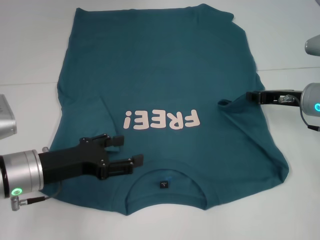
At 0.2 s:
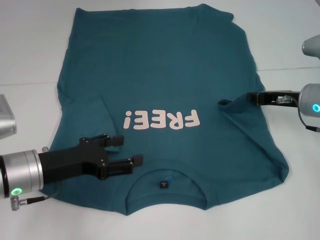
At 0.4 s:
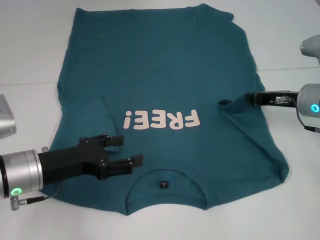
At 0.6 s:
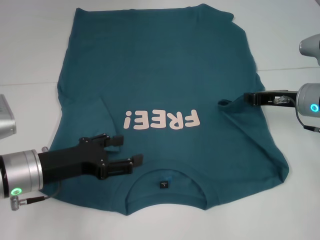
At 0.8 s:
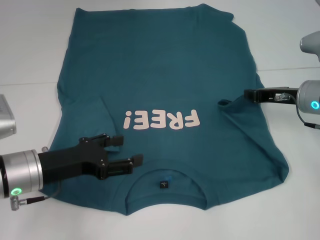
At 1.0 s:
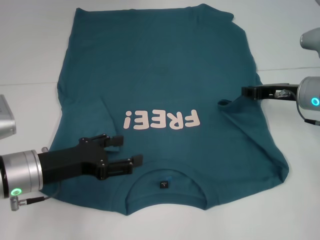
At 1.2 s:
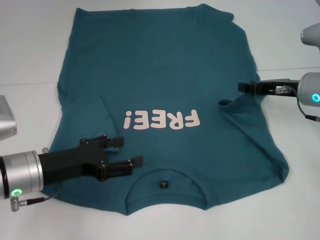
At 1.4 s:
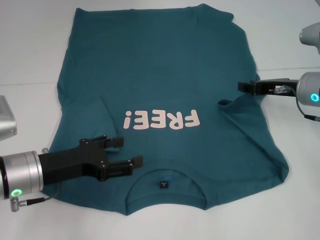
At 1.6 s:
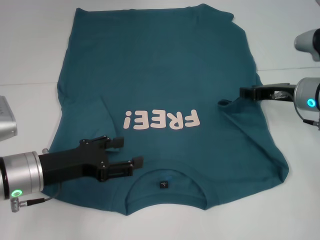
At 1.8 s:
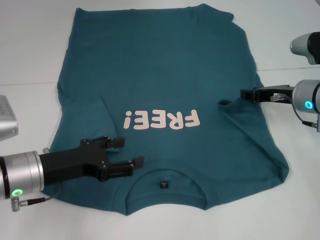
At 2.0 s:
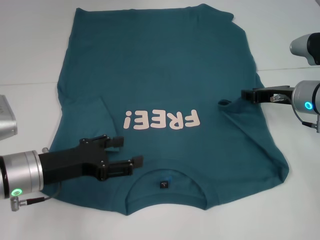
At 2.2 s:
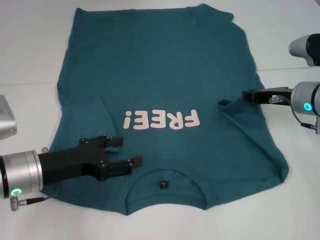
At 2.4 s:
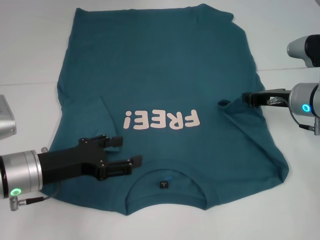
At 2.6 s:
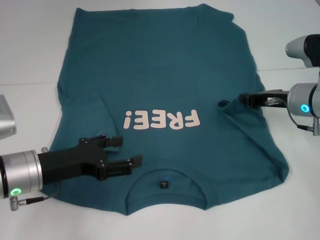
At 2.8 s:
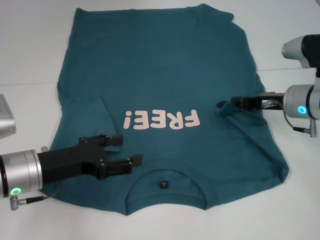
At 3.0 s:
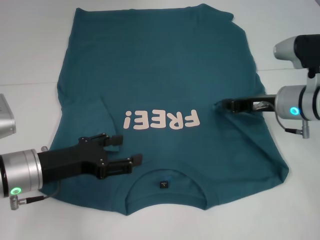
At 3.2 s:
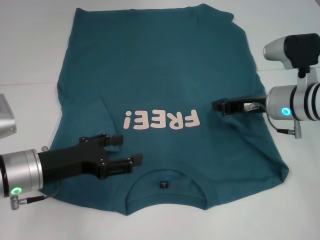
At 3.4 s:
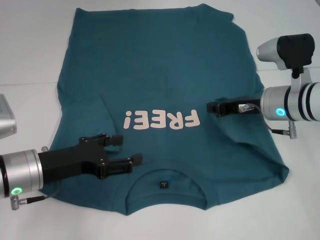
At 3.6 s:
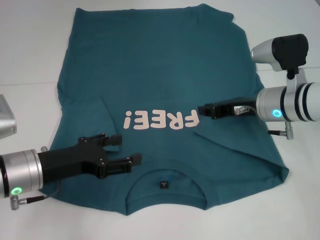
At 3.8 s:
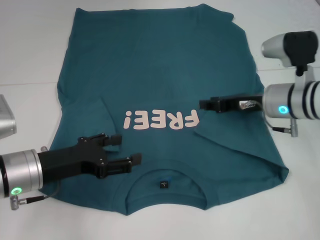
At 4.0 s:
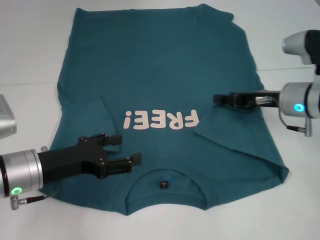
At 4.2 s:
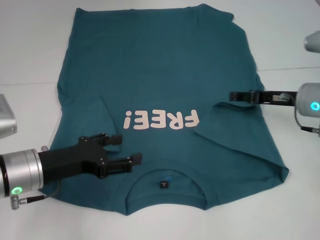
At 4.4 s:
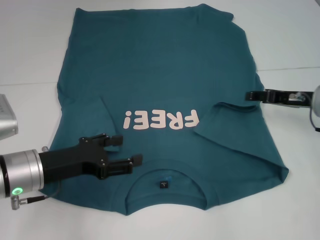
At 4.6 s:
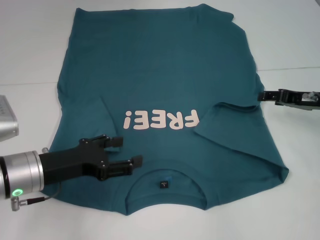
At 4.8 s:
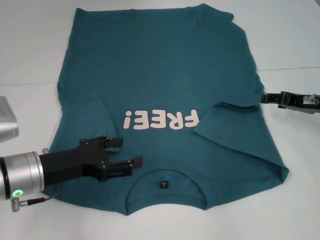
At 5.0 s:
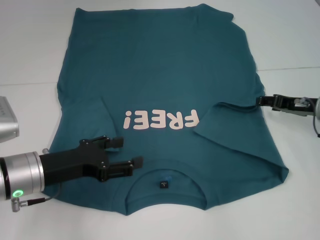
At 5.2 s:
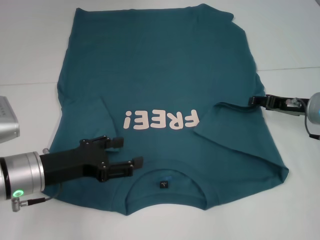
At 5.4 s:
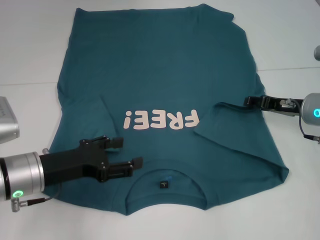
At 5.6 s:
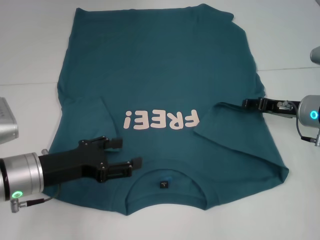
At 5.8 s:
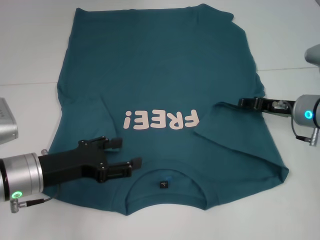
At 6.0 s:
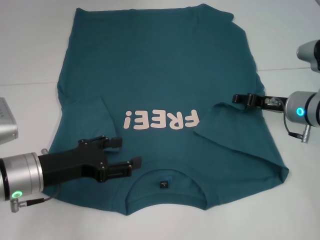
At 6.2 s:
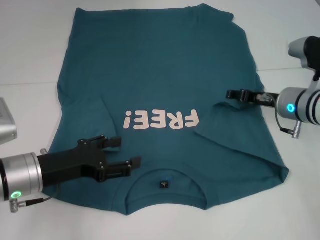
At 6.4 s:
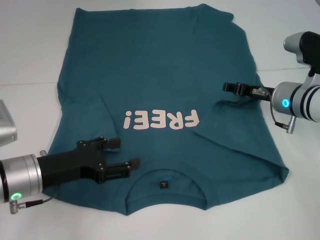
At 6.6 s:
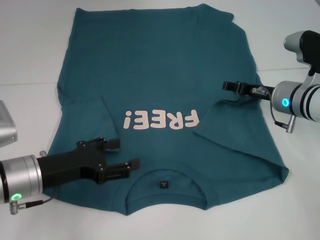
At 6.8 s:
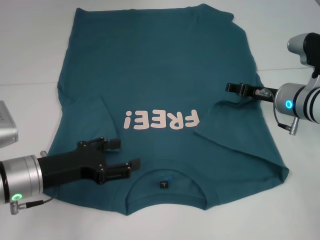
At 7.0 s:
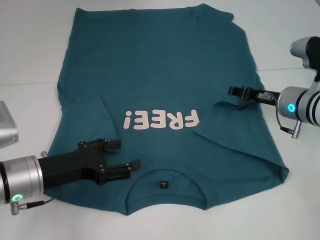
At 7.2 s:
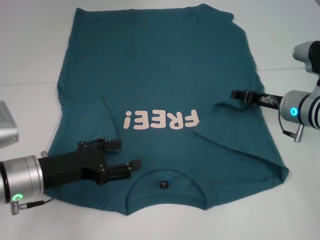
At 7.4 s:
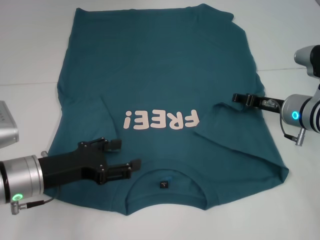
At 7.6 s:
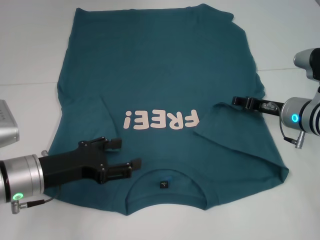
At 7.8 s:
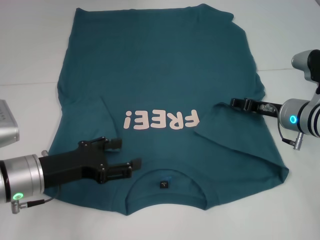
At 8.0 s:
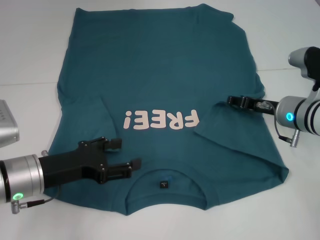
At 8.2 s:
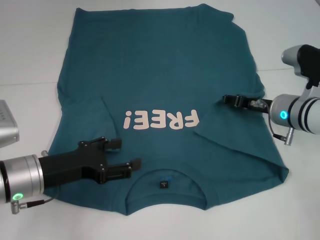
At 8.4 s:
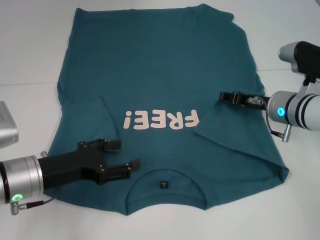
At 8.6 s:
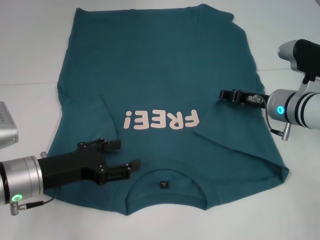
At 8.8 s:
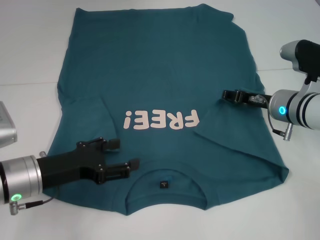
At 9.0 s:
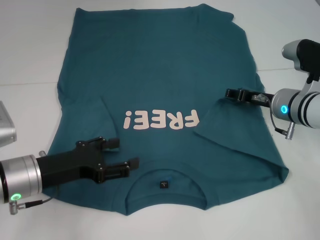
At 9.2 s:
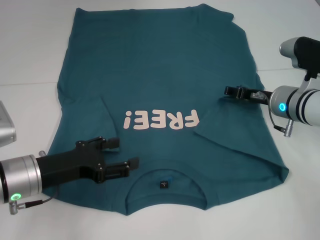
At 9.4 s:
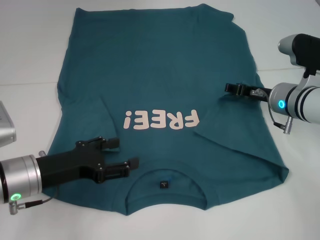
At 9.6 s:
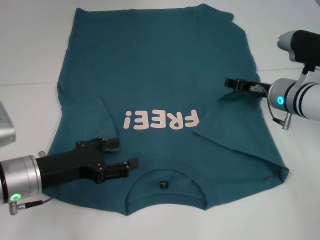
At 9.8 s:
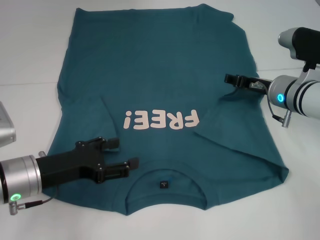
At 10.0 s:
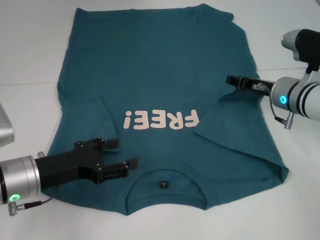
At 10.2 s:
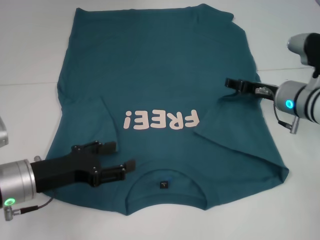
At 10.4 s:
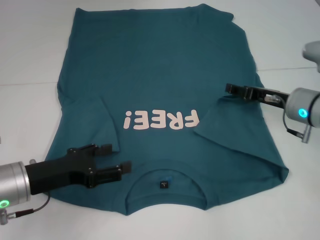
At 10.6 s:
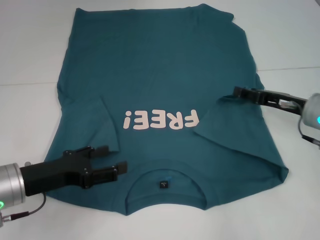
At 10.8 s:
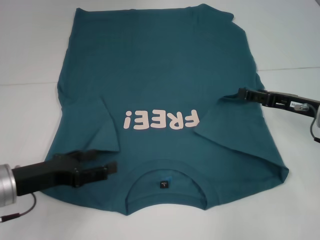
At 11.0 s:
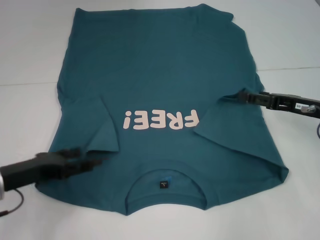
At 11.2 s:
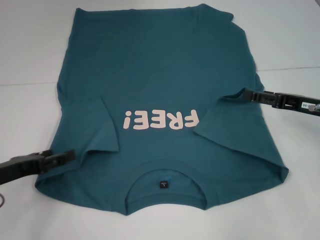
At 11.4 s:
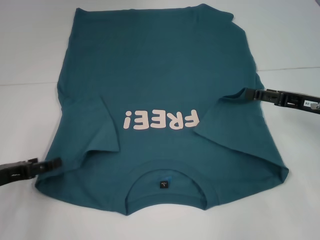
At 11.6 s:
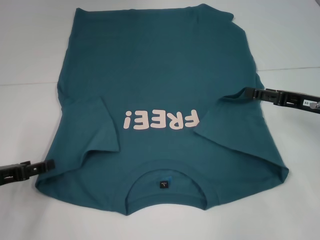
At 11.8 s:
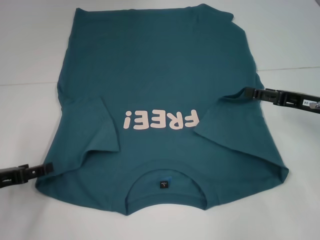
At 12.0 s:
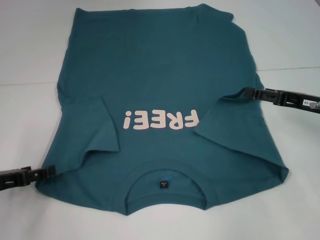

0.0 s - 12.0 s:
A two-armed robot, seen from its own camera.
Step, 0.0 s - 10.6 s: Fold the bottom right sleeve to the right.
0.0 s - 1.6 s: The right gripper closes and opens again.
1.6 s - 3.0 s: The right gripper closes.
3.0 s - 4.4 s: The right gripper moves to the right, roughly 5 cm, and opens up.
4.4 s - 6.0 s: The grippers make only small movements.
6.0 s - 10.4 s: The grippers make only small movements.
10.4 s - 12.0 s: The left gripper goes approximately 10 cm to the left. The right gripper is displaced to the right by approximately 5 cm.

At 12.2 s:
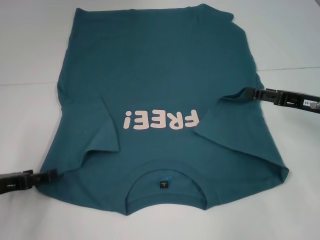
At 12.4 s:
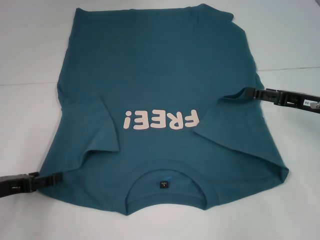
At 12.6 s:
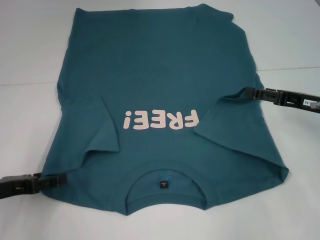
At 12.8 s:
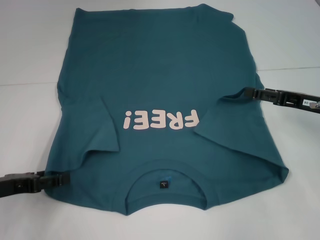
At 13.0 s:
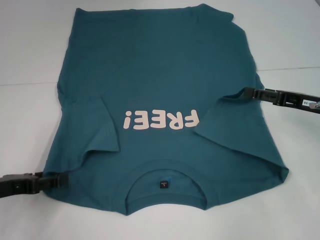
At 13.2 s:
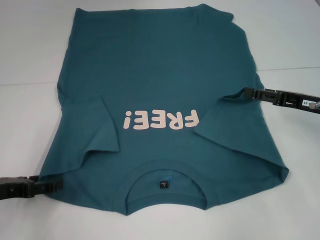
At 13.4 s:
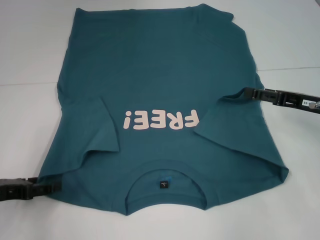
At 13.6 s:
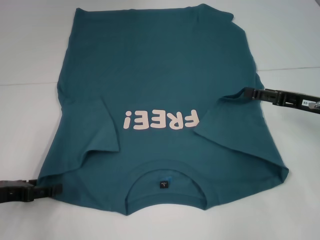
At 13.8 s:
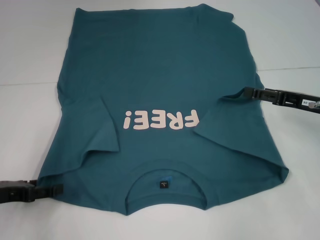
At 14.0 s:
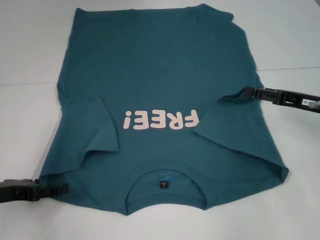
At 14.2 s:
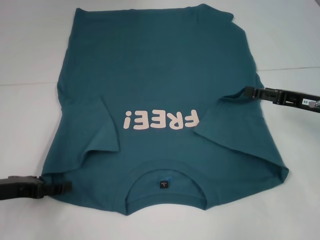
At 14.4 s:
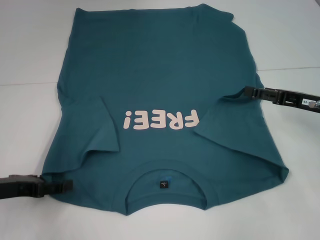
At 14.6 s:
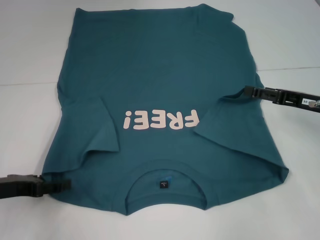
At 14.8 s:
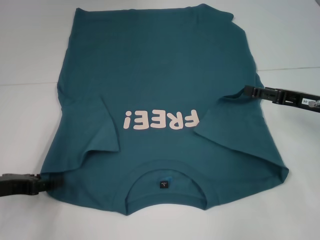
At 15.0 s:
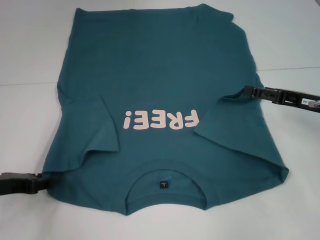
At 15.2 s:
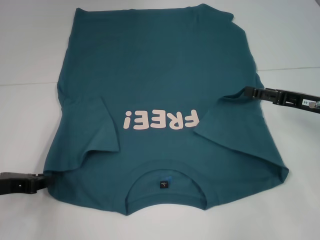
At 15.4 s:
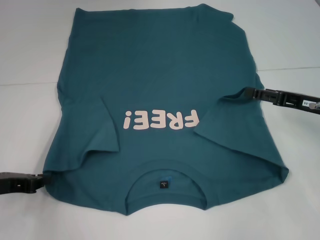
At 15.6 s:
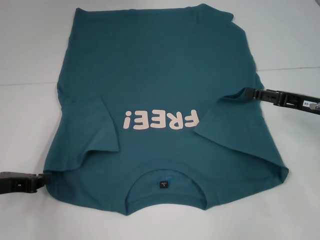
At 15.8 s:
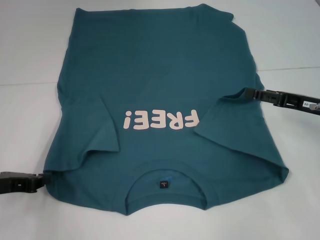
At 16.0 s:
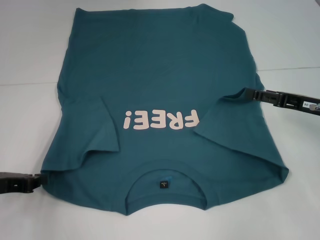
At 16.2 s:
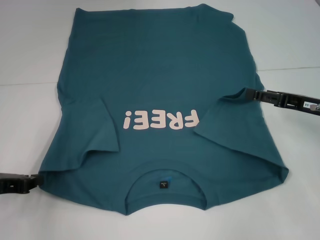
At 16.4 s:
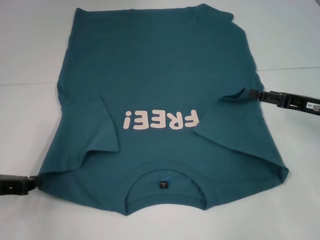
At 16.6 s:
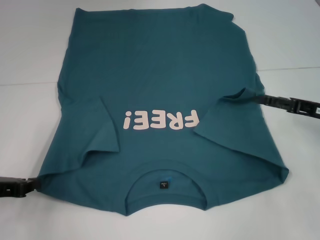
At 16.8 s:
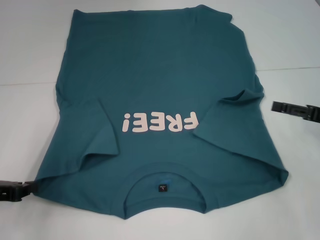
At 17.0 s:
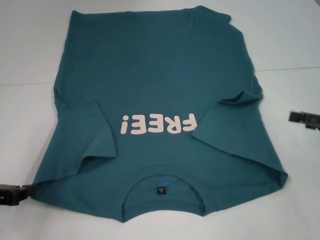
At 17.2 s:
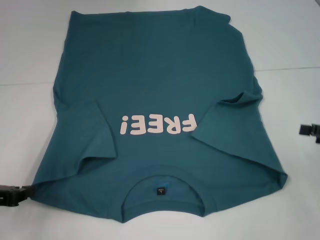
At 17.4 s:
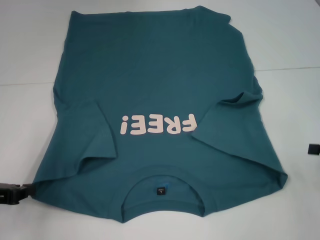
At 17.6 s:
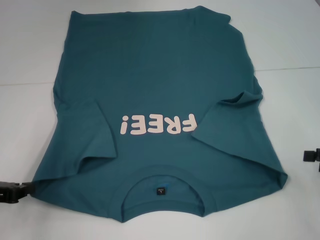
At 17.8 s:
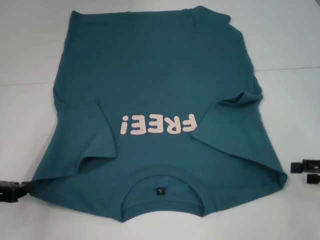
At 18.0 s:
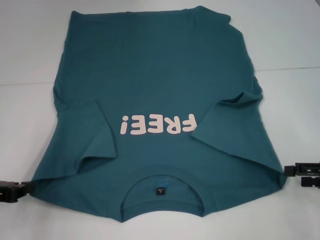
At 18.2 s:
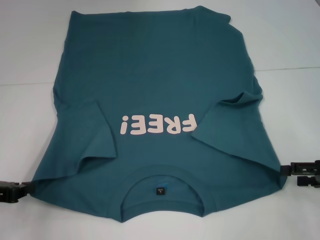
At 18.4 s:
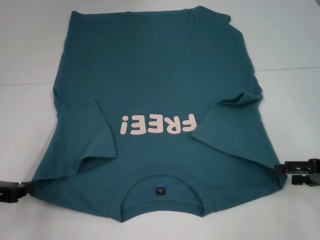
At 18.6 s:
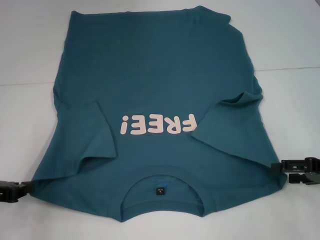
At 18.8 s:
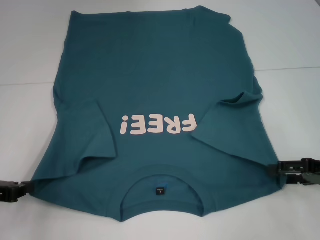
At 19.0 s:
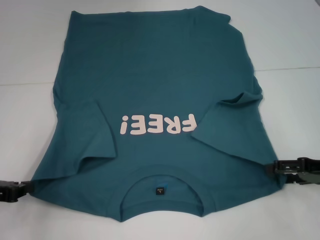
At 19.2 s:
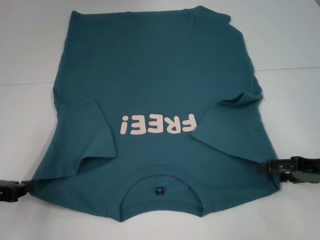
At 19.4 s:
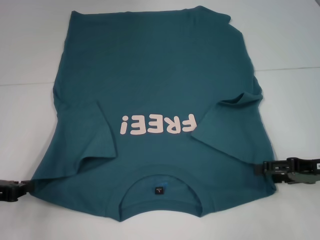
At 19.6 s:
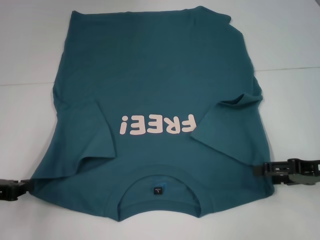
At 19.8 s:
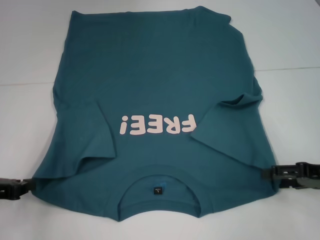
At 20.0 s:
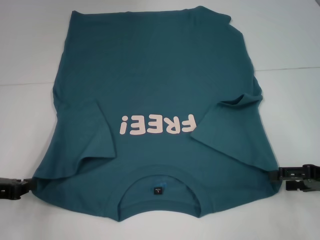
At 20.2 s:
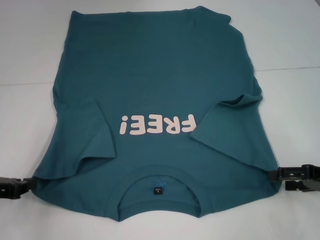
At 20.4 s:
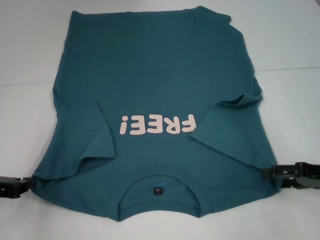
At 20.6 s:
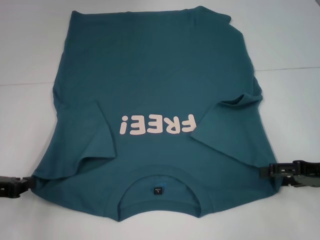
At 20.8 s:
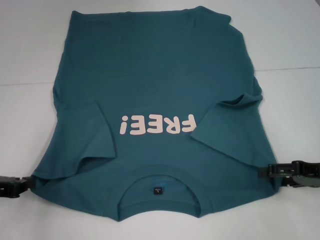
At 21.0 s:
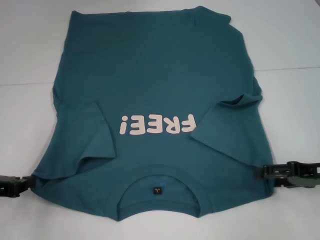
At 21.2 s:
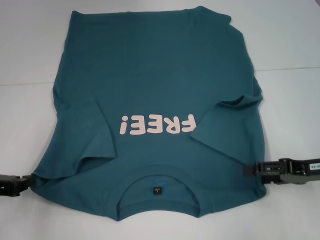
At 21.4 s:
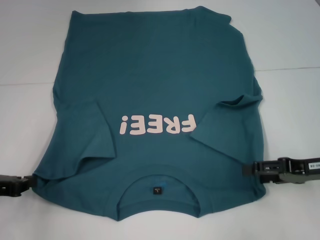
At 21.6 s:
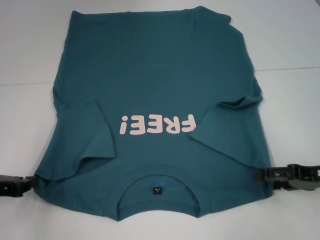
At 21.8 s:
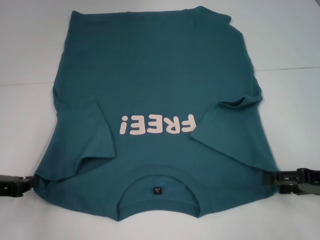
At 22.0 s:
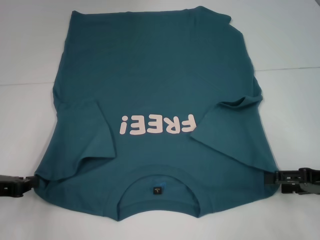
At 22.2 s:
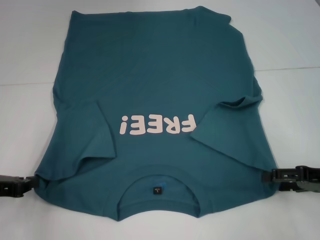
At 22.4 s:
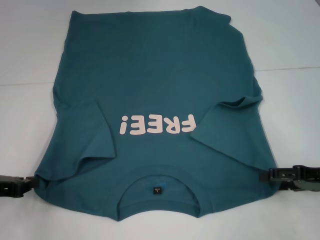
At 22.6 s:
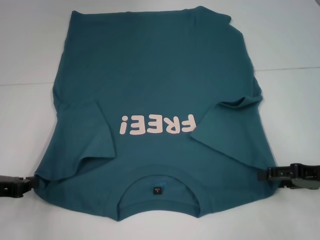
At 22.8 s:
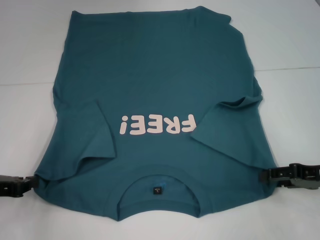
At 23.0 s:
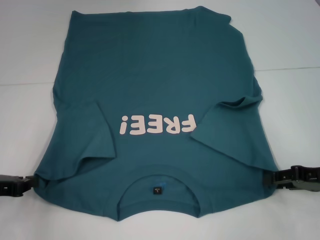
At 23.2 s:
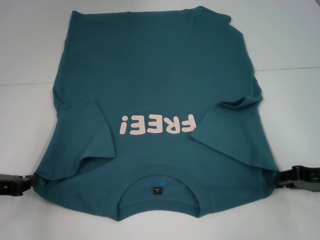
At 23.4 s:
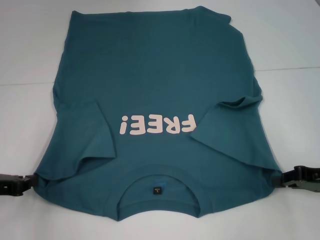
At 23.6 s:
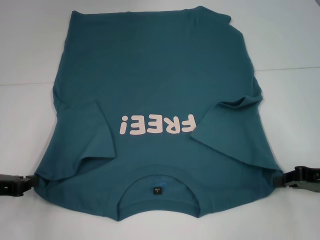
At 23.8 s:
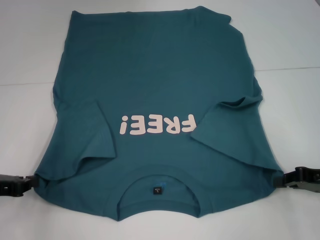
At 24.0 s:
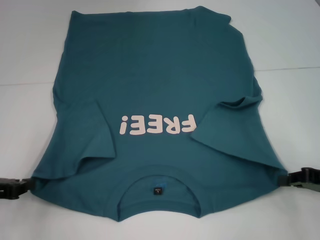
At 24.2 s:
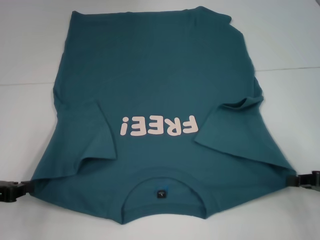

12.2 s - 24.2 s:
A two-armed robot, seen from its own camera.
Step, 16.4 s - 24.0 s: Grab the bottom right corner with your right hand.
12.2 s - 13.8 s: The grippers move only a little.
13.8 s - 15.2 s: The left gripper closes its fingers.
15.2 s - 16.6 s: The left gripper closes.
16.6 s - 18.2 s: The right gripper travels backward by roughly 5 cm.
18.2 s - 22.6 s: The grippers move only a little.
22.6 s - 24.2 s: The right gripper closes.
